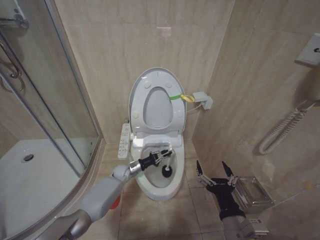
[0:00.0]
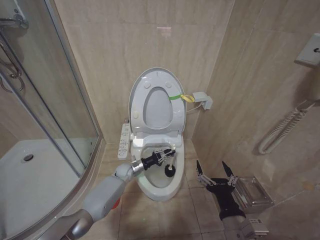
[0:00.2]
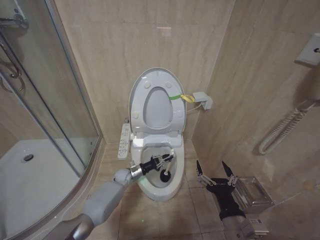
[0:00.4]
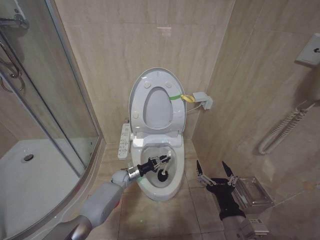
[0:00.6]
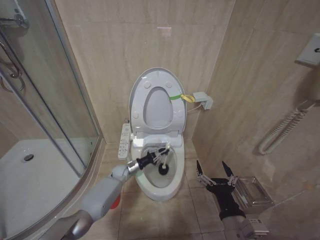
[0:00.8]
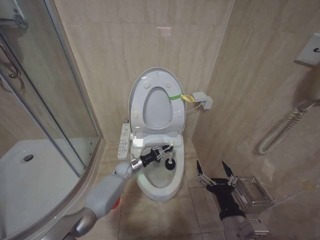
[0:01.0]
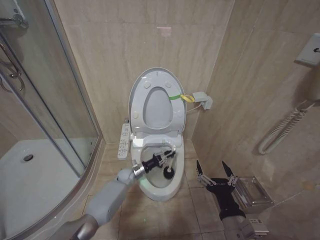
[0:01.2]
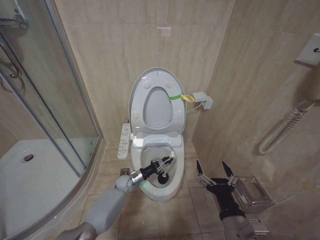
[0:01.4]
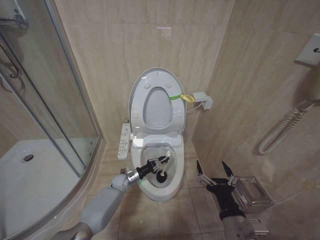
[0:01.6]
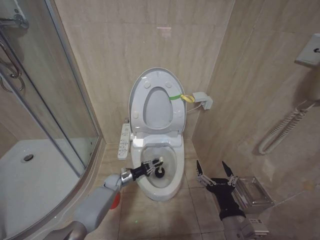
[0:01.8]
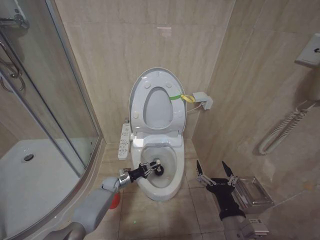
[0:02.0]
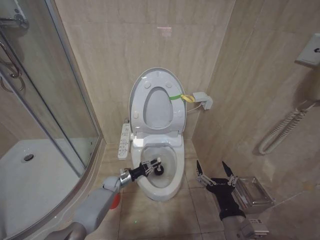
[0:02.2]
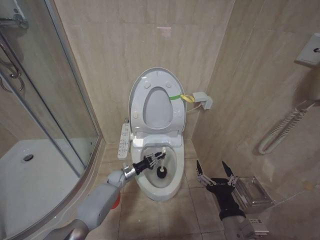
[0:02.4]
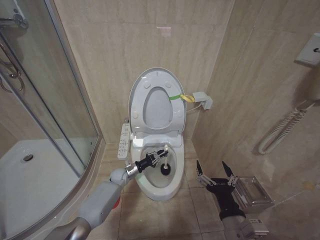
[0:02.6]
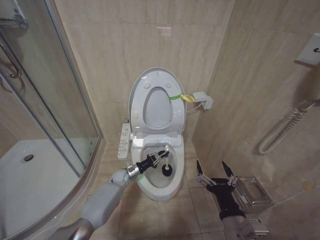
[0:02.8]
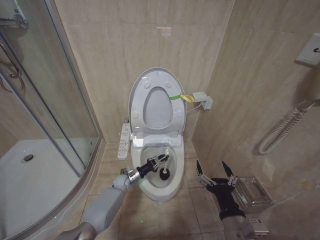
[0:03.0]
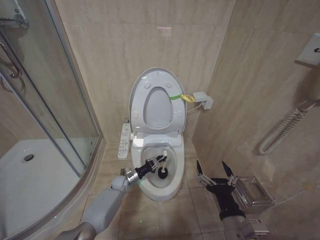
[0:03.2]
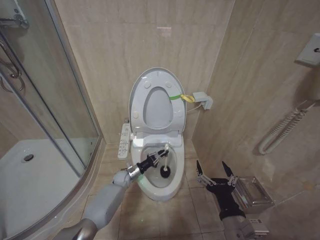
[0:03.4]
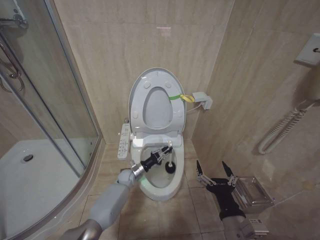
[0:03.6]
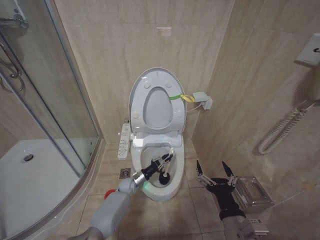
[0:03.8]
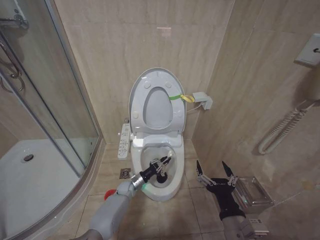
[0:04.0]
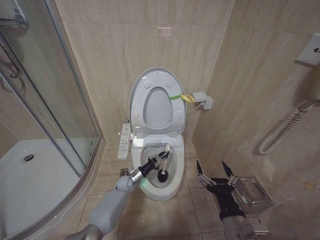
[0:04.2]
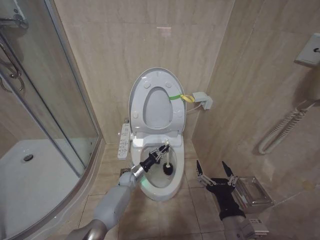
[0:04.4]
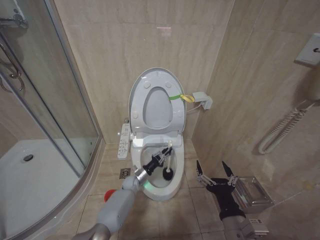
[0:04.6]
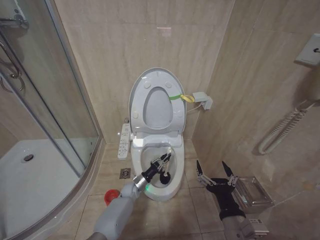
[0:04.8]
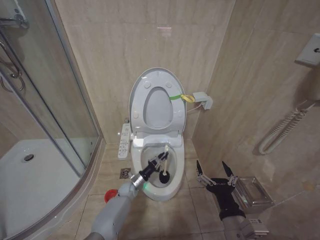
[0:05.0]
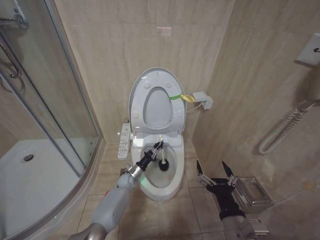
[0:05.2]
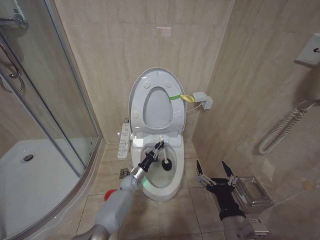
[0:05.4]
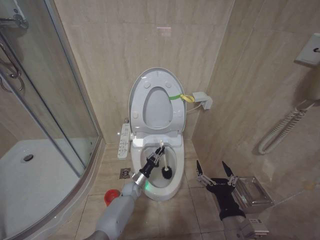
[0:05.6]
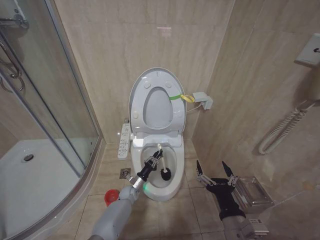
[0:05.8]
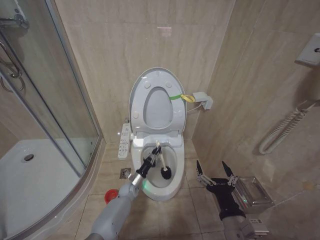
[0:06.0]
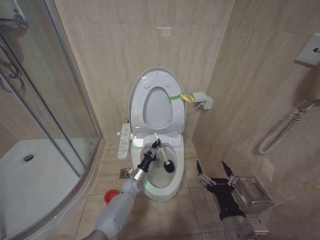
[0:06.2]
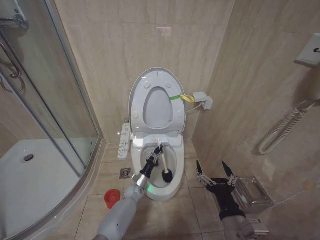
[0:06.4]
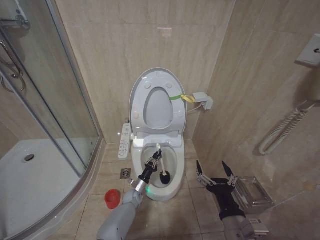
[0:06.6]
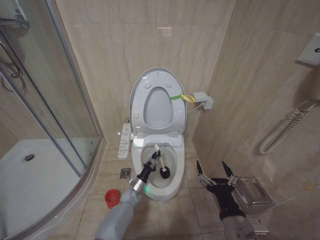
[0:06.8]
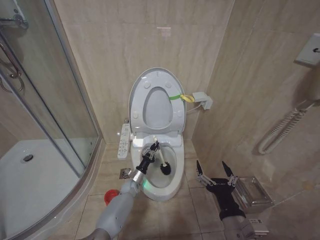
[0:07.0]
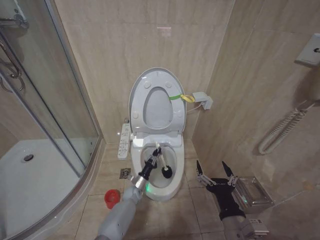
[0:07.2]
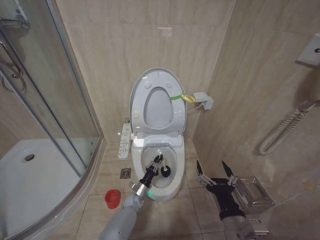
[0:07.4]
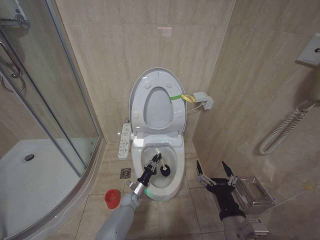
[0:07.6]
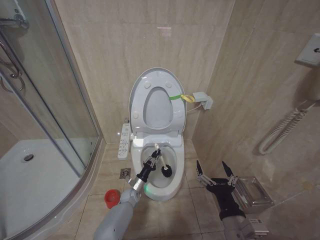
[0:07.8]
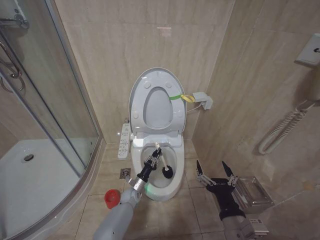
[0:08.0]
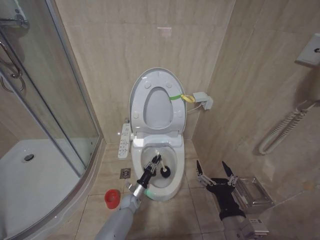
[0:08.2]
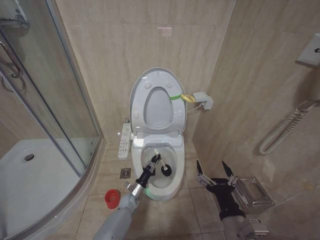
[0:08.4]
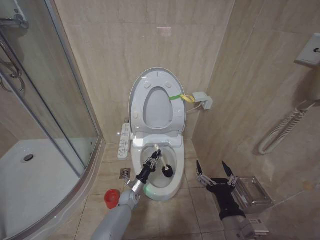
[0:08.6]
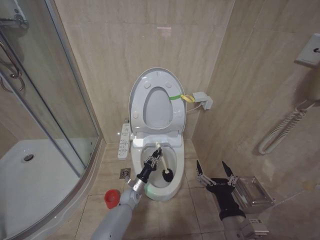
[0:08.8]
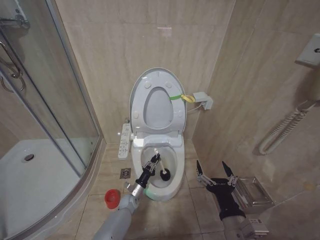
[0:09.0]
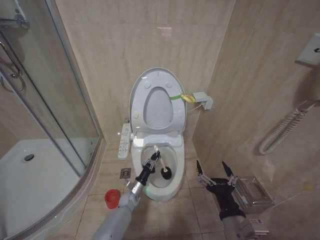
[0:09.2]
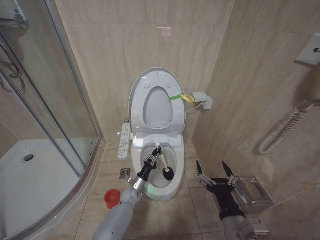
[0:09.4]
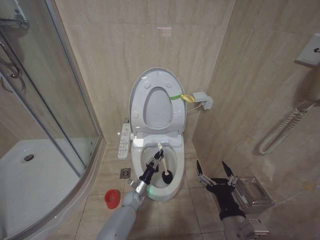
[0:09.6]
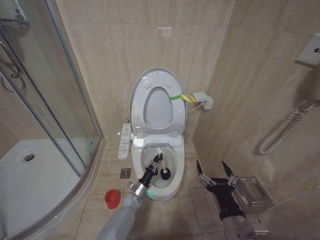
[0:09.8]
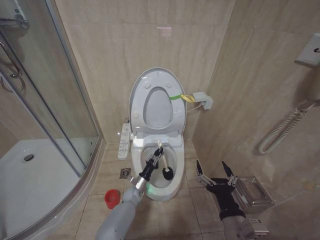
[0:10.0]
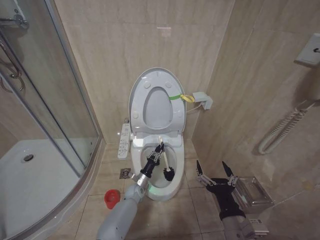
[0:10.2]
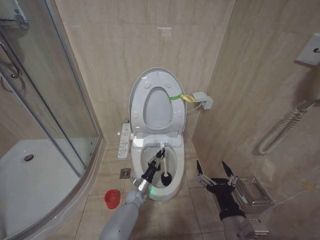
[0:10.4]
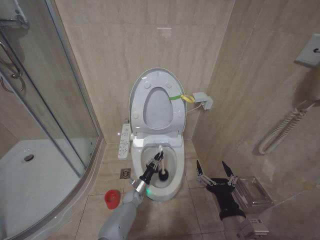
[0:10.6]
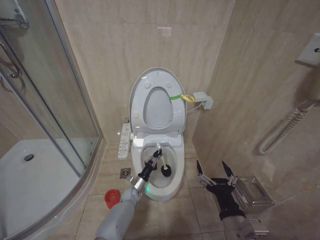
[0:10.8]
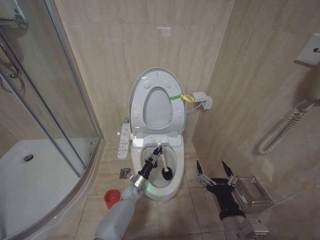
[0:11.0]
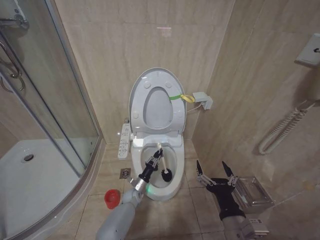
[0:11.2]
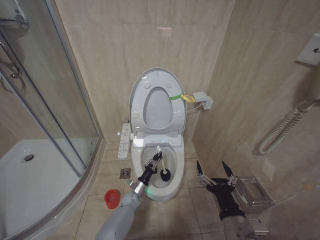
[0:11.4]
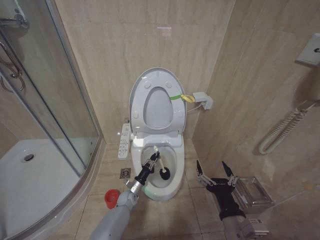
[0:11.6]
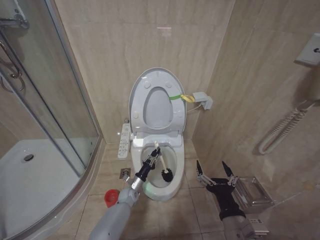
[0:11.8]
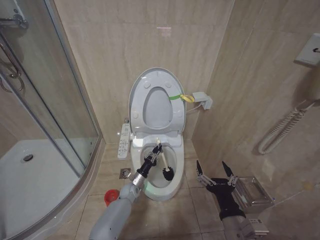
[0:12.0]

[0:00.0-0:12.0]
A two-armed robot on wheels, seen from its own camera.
Task of the whole recording: Open the toilet lid, clean the toilet bowl with a toilet brush, close the toilet lid, and flush.
0:00.0 to 0:01.6: The left gripper ends up about 5 cm from where it was.
0:03.0 to 0:04.4: There are only small adjustments of the grippers.
0:04.4 to 0:06.0: The left gripper shifts by some 5 cm.
0:06.0 to 0:07.6: There are only small adjustments of the grippers.
0:09.0 to 0:12.0: The grippers make only small movements.

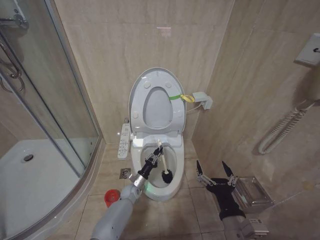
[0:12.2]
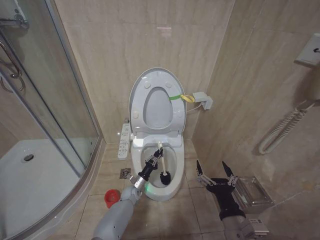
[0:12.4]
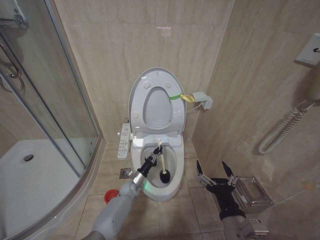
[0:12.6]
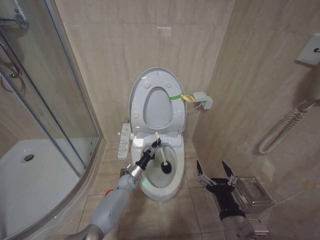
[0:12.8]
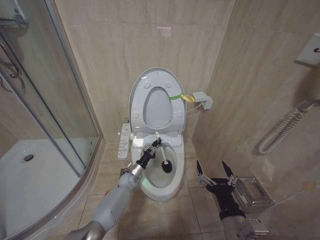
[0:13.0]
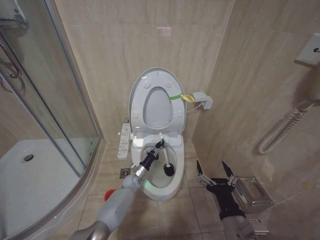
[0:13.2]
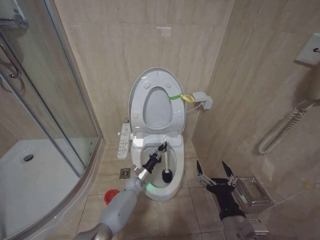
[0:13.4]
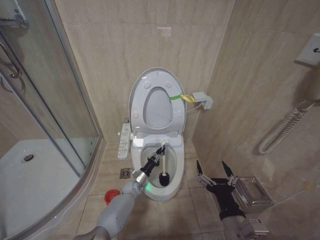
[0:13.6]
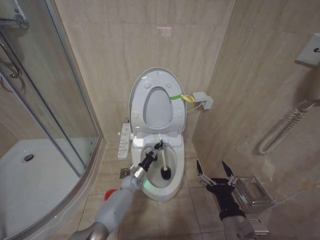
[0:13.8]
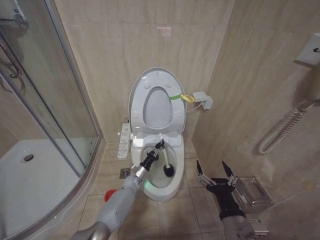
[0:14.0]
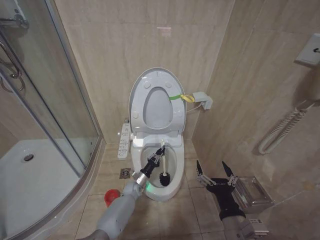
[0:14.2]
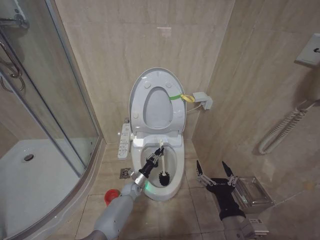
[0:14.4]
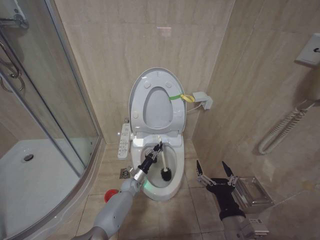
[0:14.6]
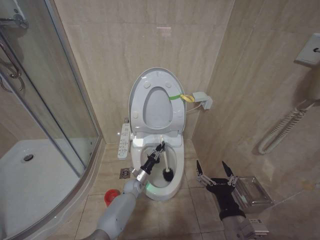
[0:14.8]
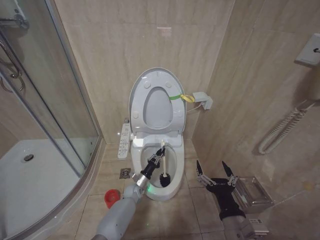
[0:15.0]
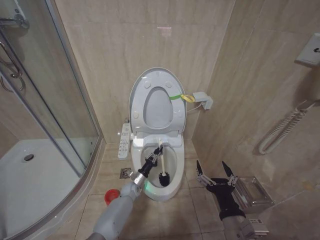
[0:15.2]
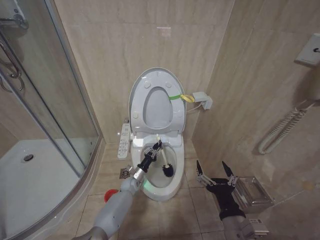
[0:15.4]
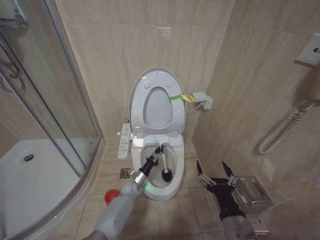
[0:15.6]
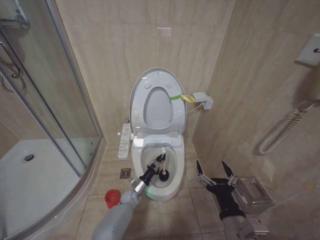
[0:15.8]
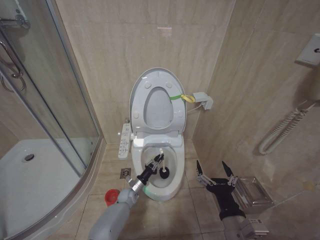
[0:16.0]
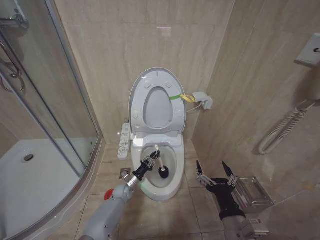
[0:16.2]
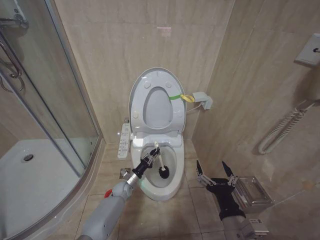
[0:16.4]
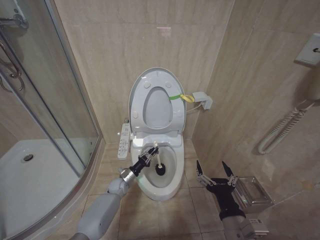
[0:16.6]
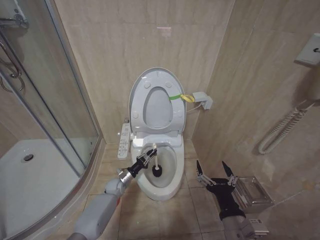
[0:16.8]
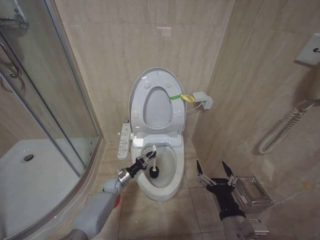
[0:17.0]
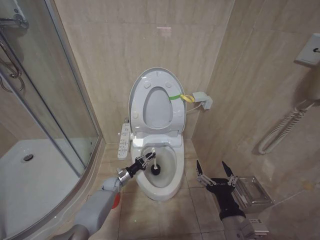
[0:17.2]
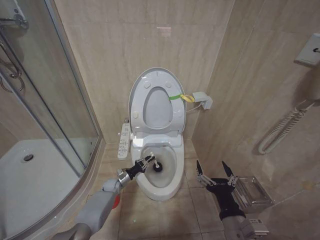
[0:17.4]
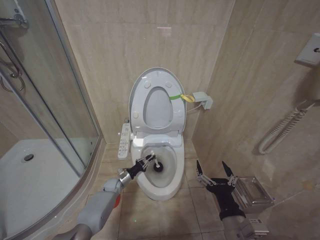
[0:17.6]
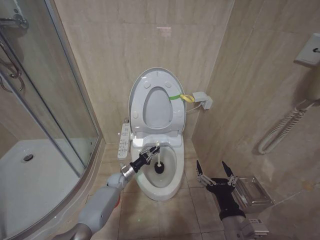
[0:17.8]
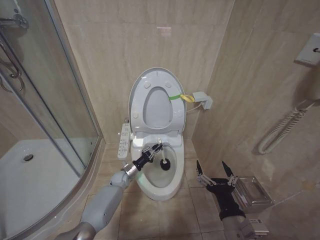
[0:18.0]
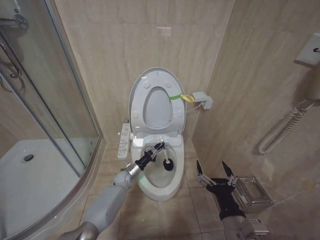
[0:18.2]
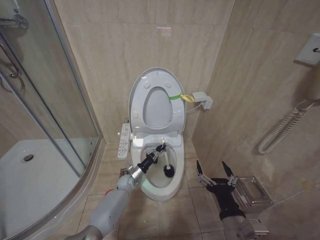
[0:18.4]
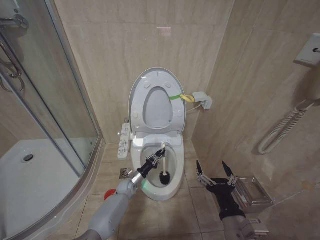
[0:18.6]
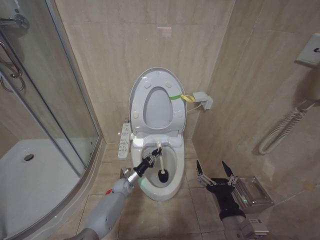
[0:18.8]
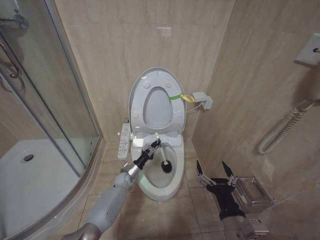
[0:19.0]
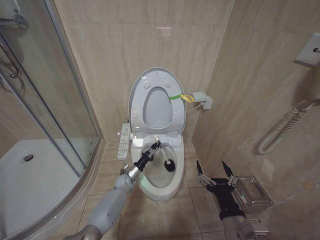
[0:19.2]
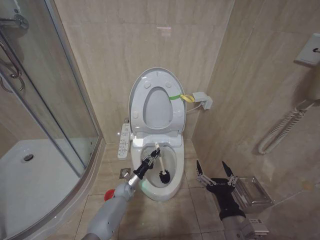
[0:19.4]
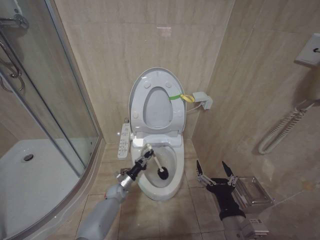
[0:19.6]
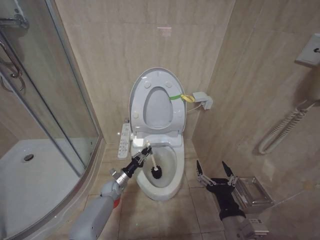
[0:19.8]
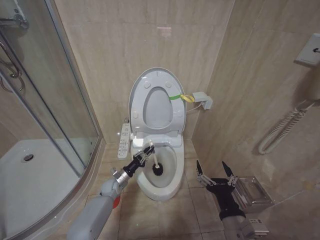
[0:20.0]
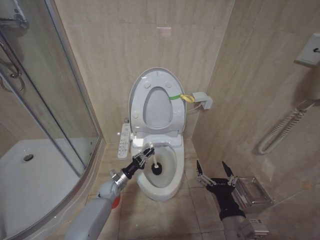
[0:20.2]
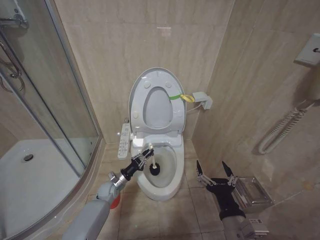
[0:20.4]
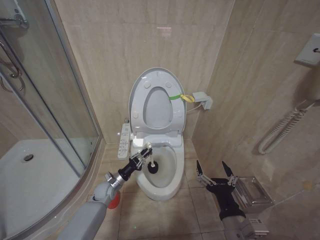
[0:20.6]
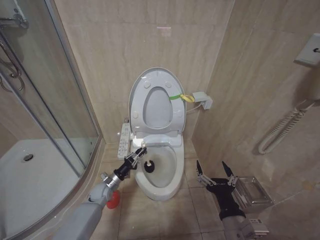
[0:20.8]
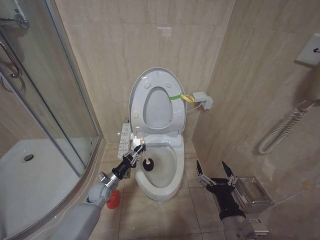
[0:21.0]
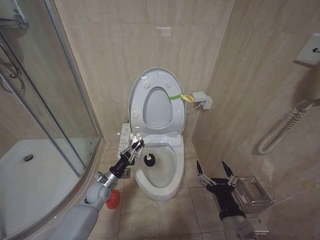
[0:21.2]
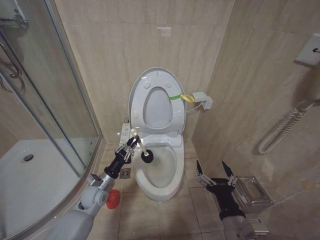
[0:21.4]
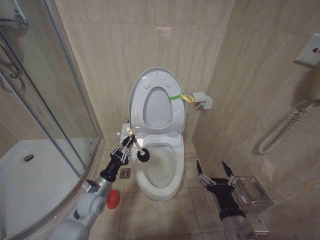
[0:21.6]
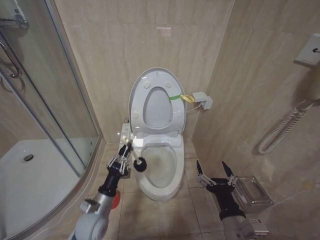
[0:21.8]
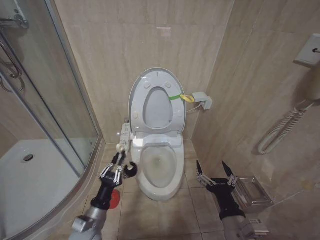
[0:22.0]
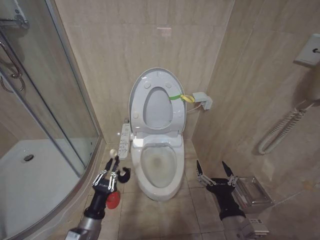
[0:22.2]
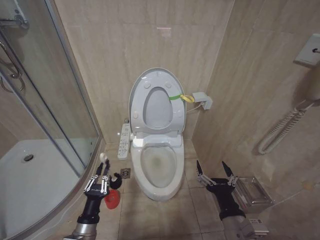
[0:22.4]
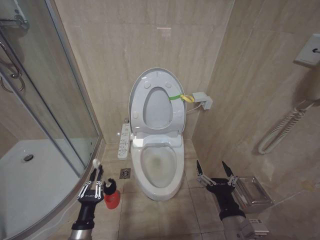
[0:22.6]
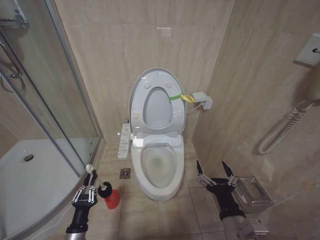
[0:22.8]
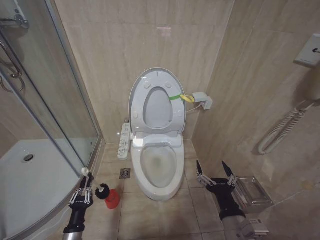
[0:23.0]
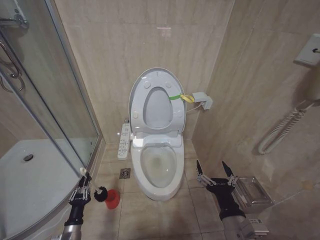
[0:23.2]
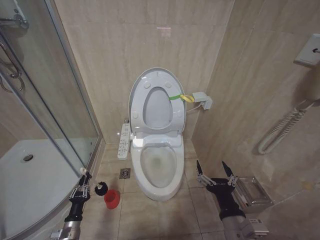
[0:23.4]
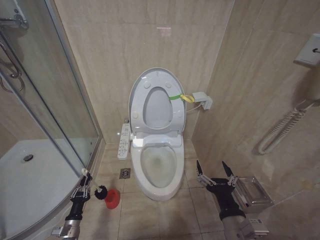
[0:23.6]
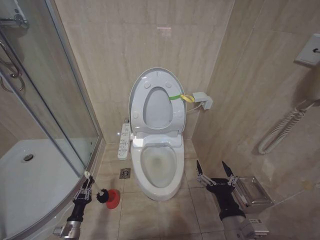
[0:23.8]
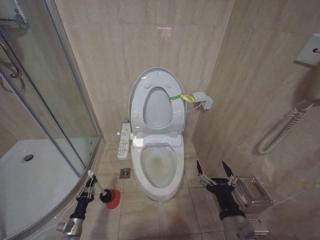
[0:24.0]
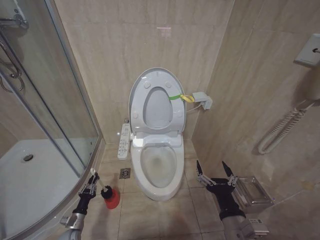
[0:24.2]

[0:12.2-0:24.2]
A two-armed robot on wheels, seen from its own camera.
Task of the whole recording: Open the toilet lid, clean the toilet bowl with a toilet brush, close the toilet lid, and flush.
0:12.2 to 0:15.2: The grippers move only a little.
0:15.2 to 0:16.6: The left gripper goes about 5 cm to the left.
0:16.6 to 0:18.2: There are only small adjustments of the grippers.
0:18.2 to 0:19.8: The left gripper shifts by roughly 5 cm.
0:19.8 to 0:21.2: The left gripper shifts approximately 10 cm upward.
0:21.2 to 0:22.6: The left gripper heads backward, covering approximately 25 cm.
0:22.6 to 0:24.2: The left gripper travels downward, to the left and forward by some 25 cm.
